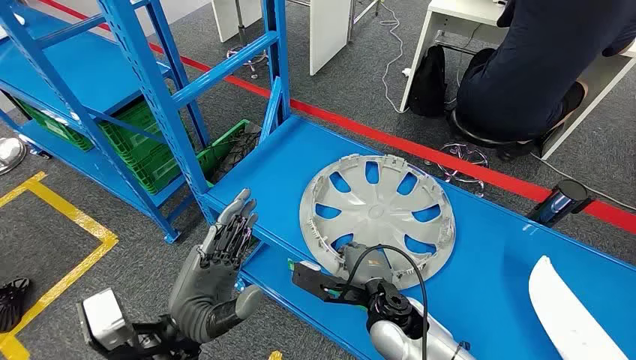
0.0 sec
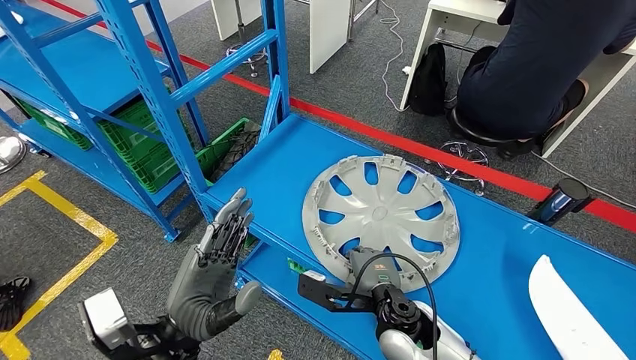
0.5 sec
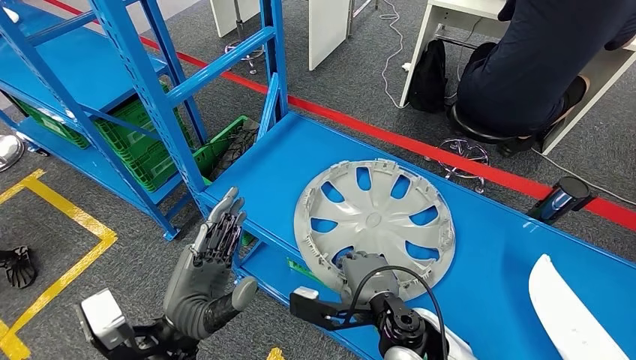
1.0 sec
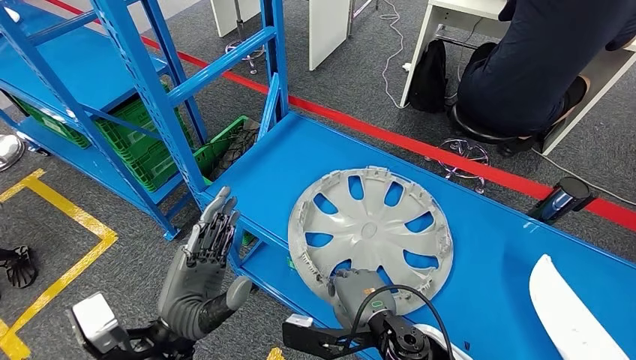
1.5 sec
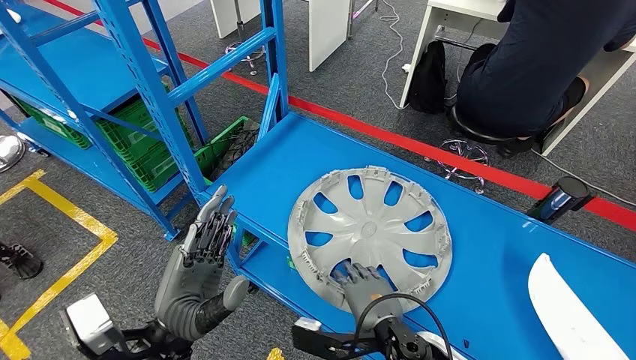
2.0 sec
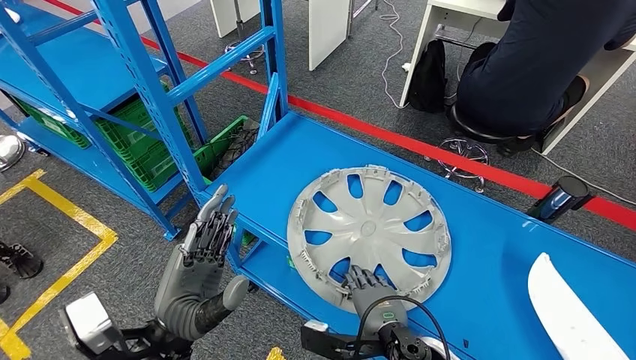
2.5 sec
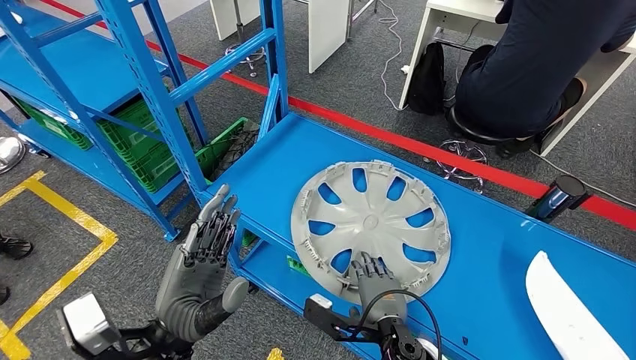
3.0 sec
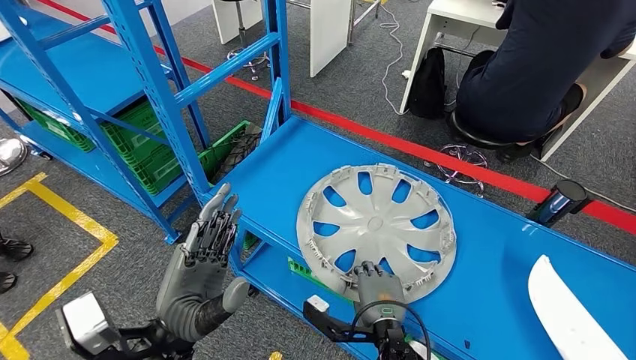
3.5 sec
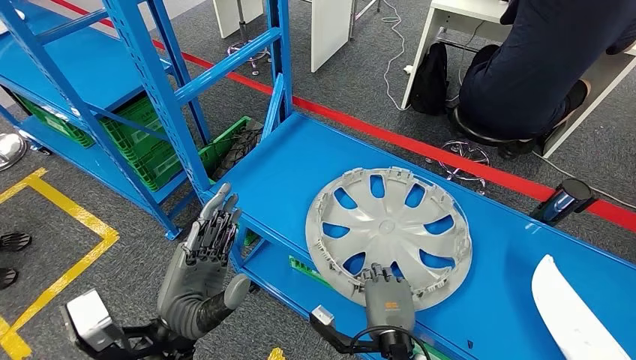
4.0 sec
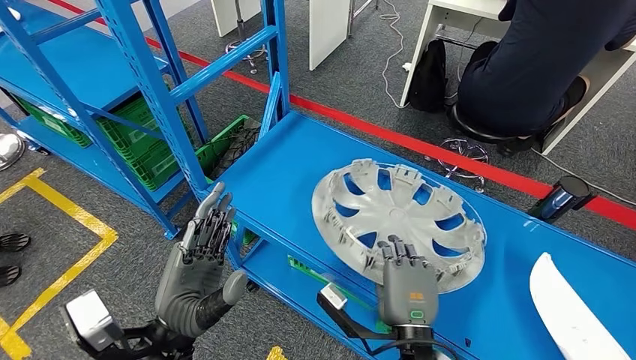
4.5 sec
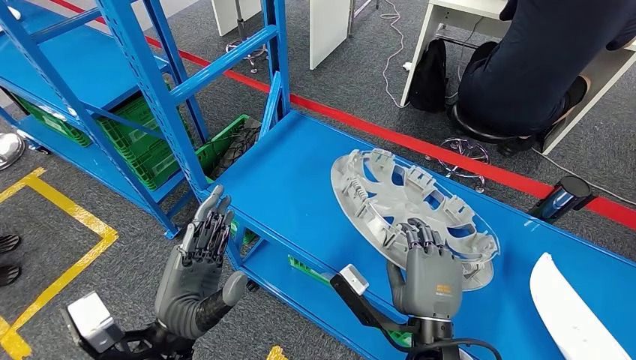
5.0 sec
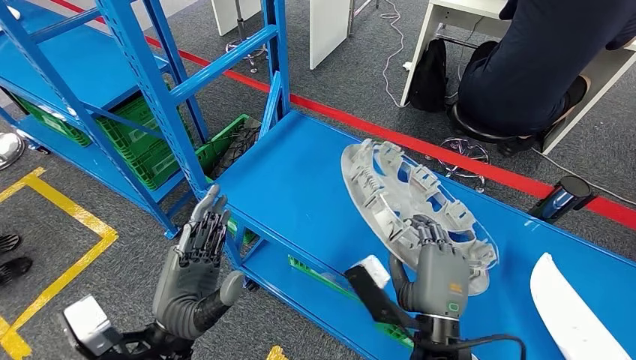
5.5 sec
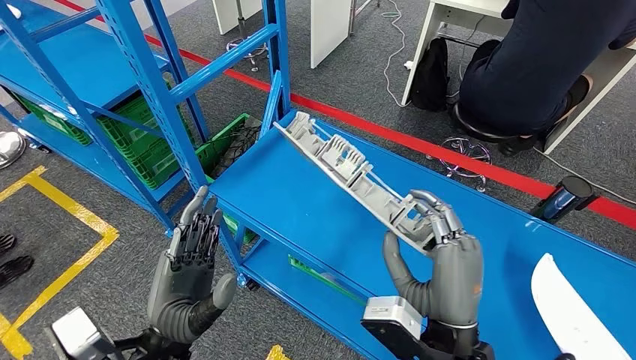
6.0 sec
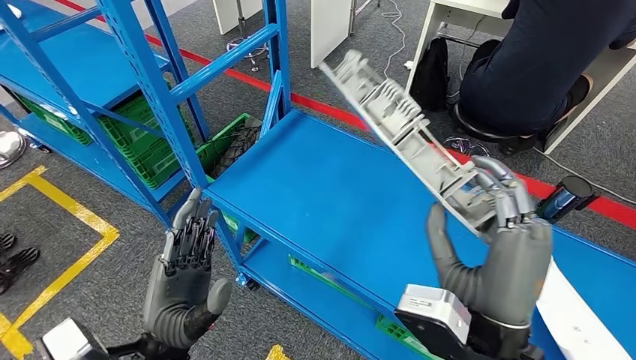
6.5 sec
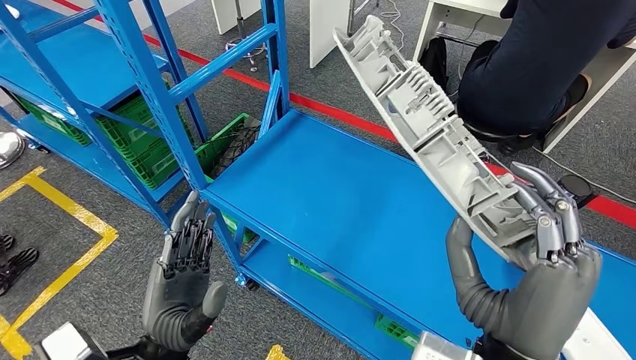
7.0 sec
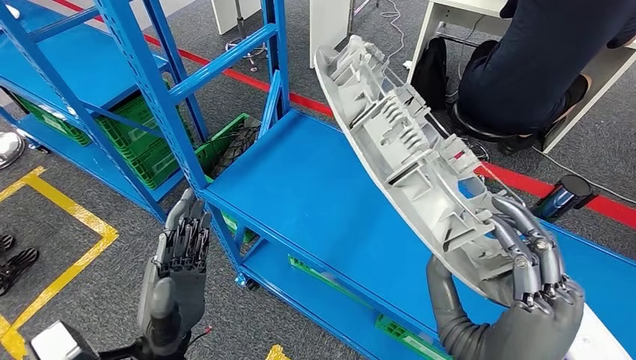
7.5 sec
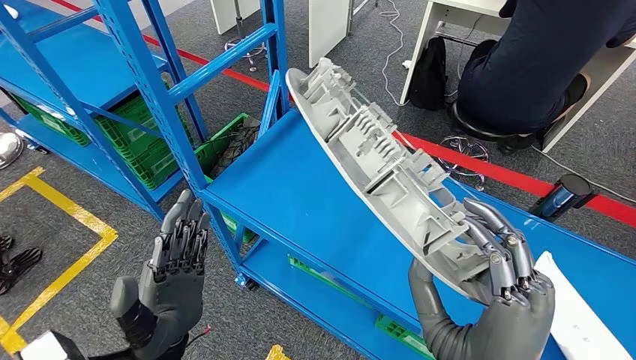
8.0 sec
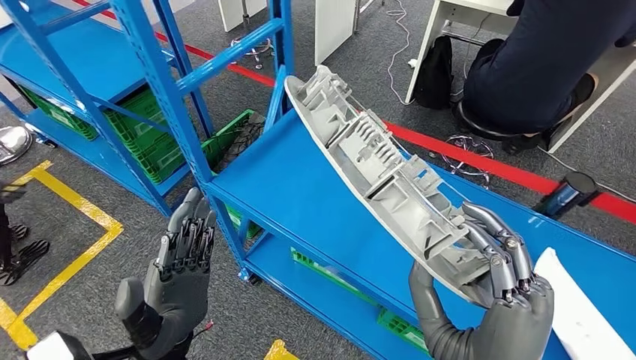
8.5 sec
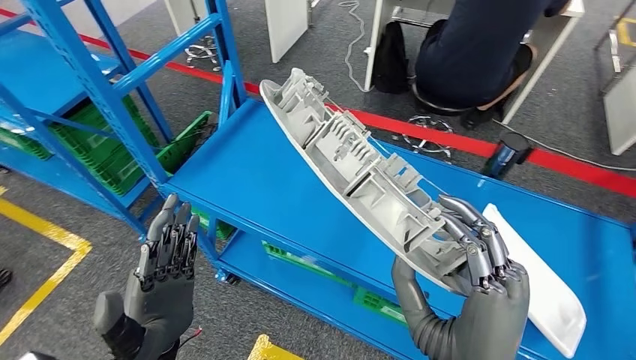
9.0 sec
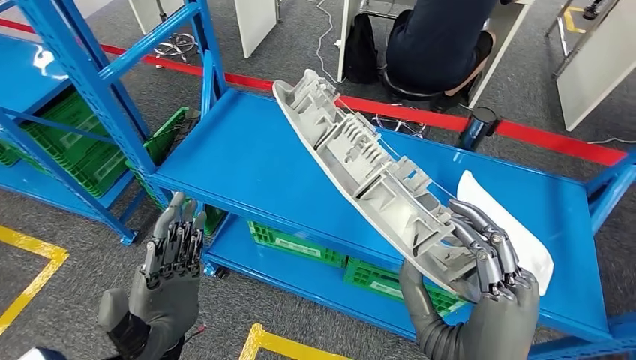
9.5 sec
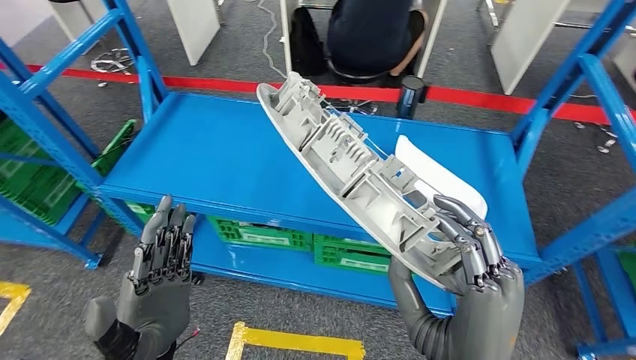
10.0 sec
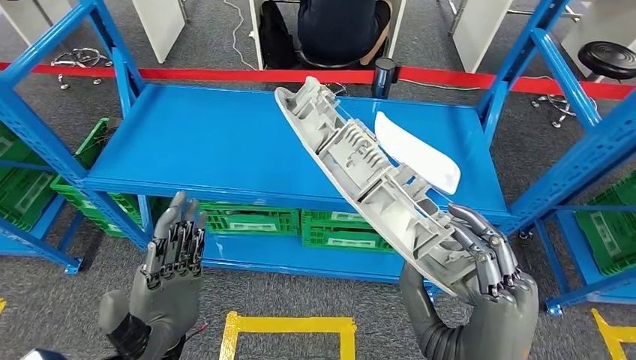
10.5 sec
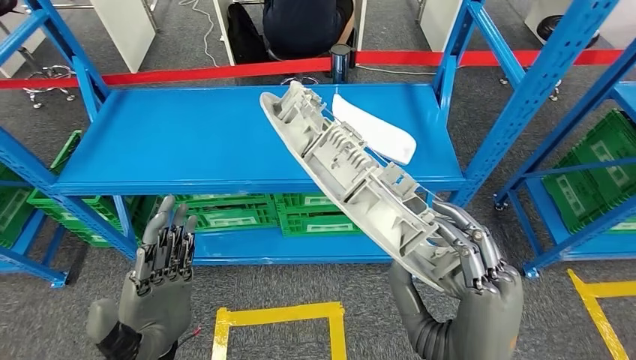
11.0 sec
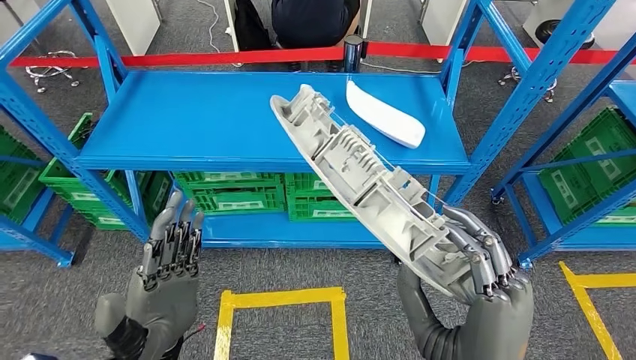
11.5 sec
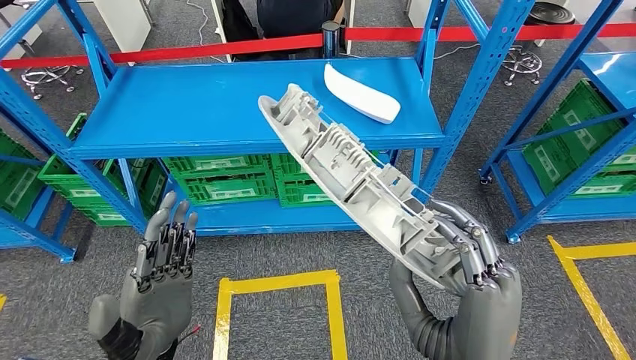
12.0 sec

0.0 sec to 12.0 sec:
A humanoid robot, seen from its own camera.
Step, 0.0 sec to 8.0 sec: Pick up the small component from the shelf.

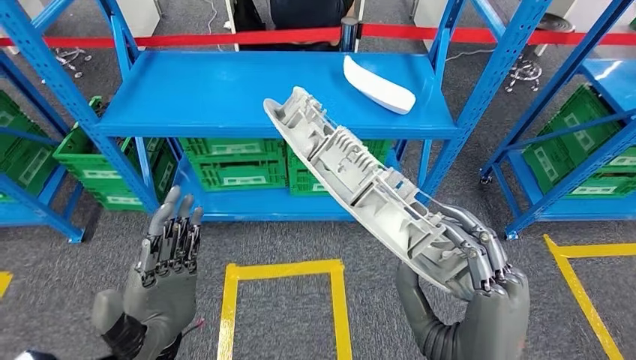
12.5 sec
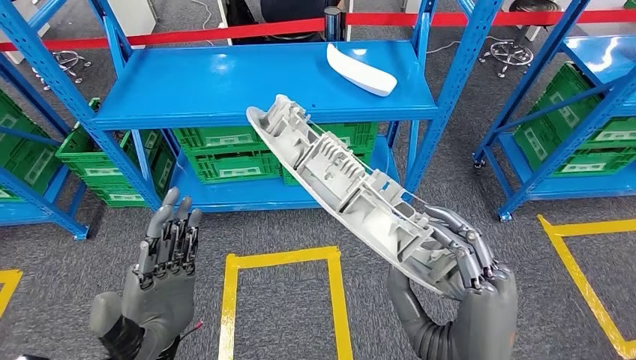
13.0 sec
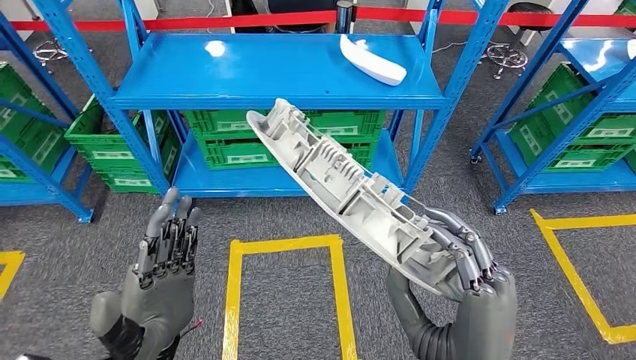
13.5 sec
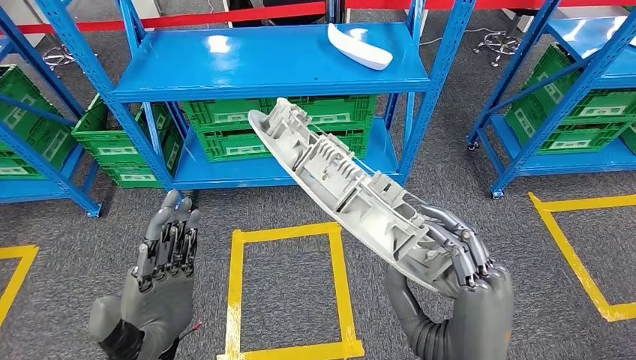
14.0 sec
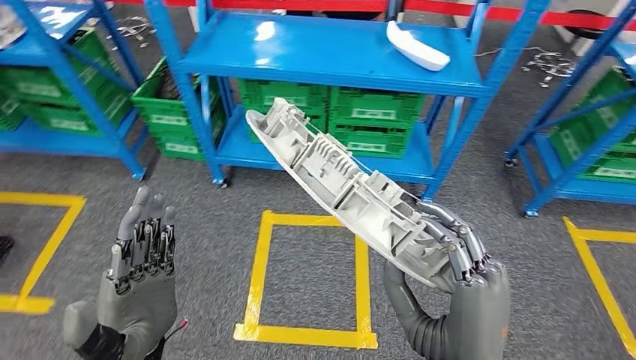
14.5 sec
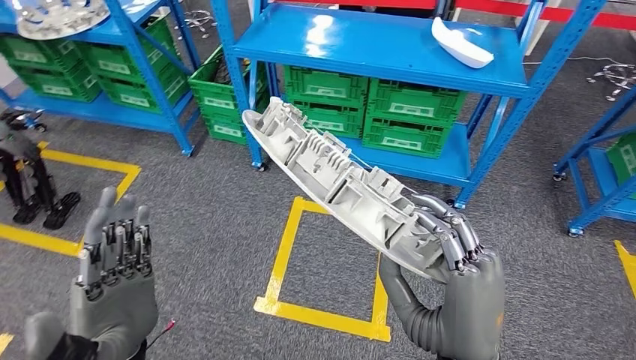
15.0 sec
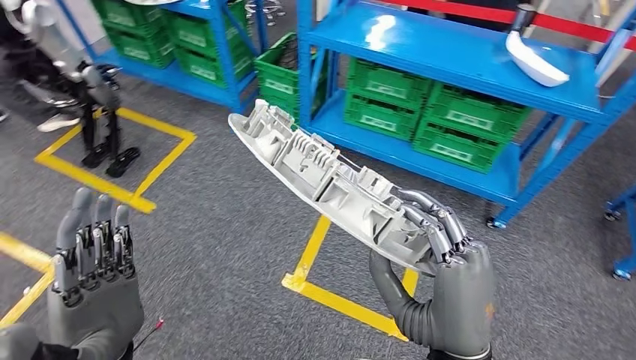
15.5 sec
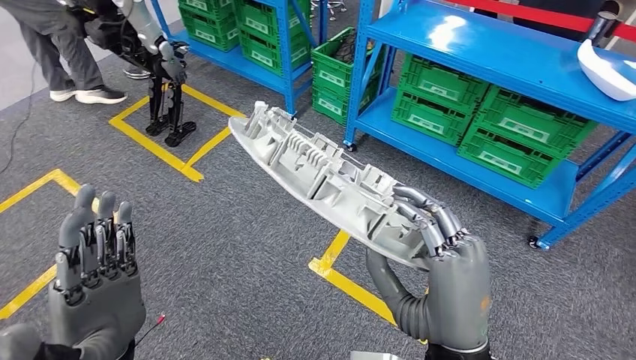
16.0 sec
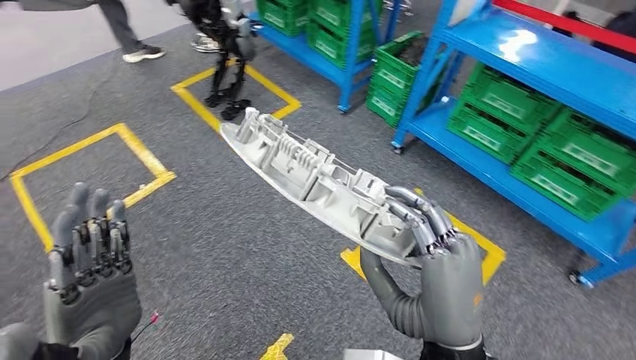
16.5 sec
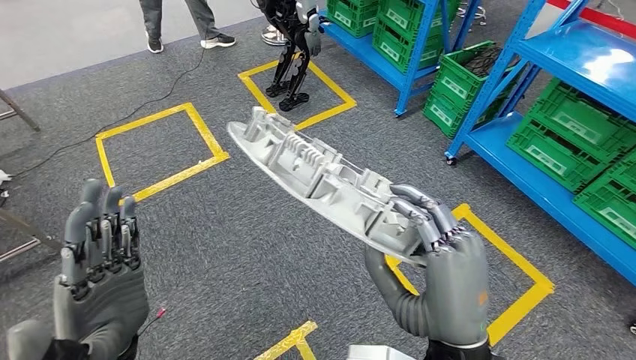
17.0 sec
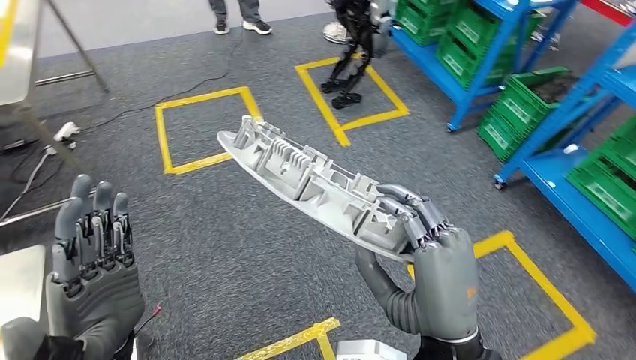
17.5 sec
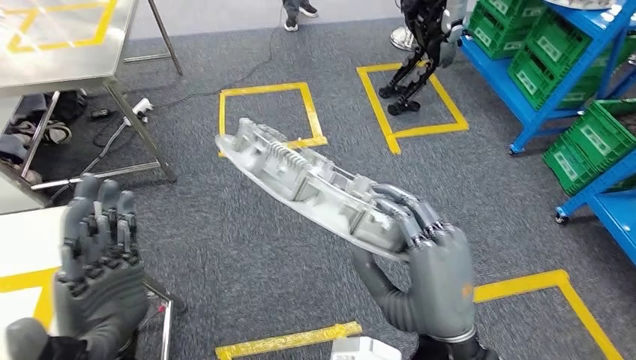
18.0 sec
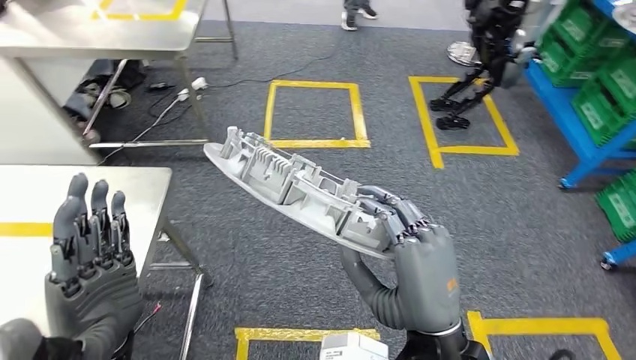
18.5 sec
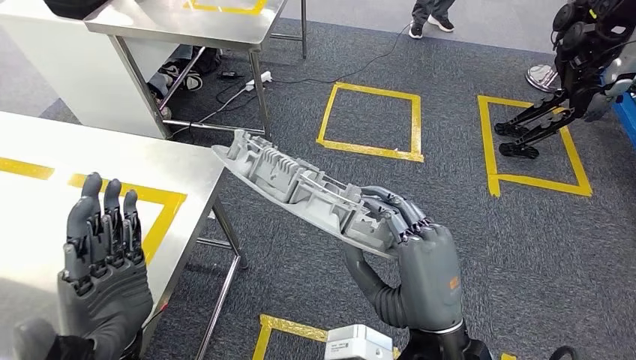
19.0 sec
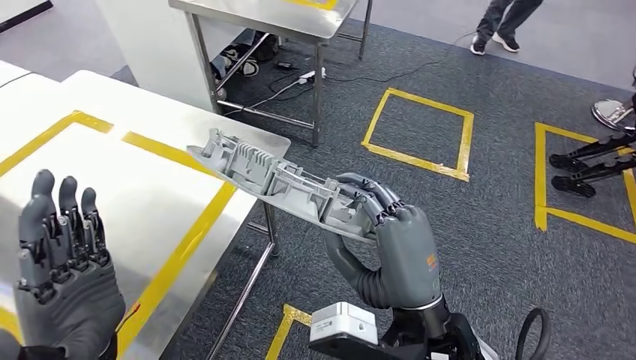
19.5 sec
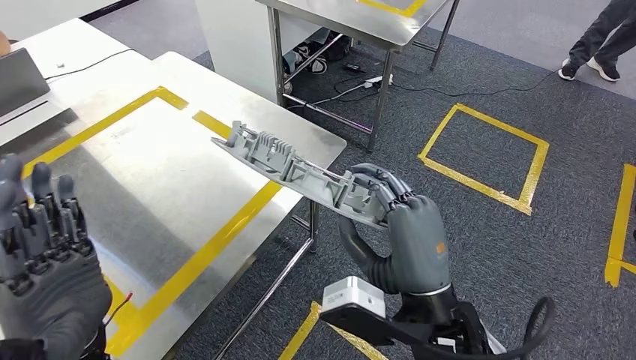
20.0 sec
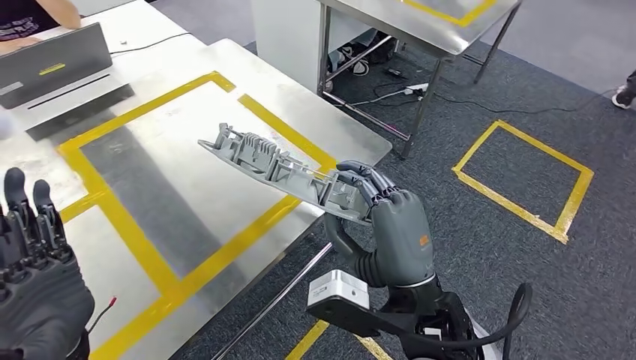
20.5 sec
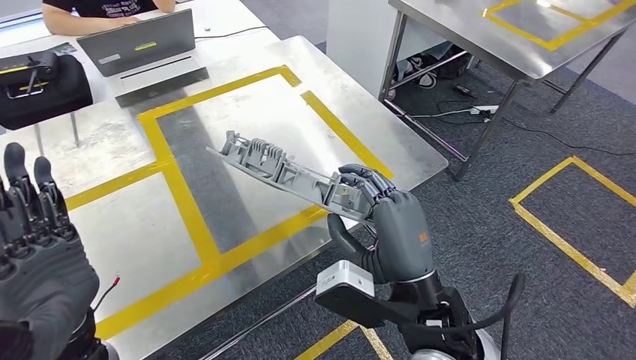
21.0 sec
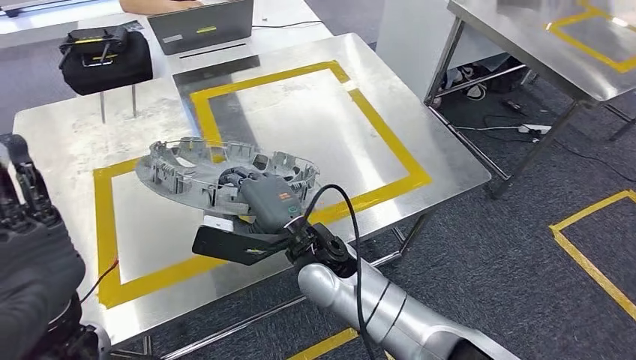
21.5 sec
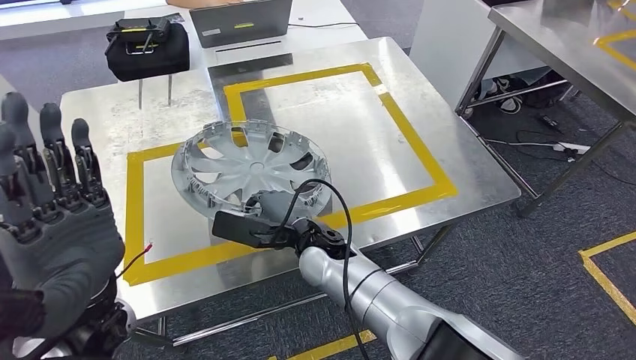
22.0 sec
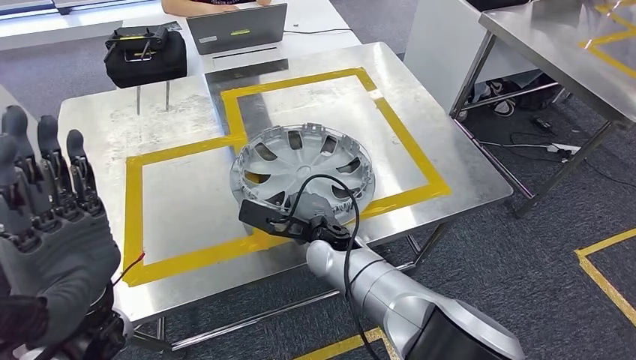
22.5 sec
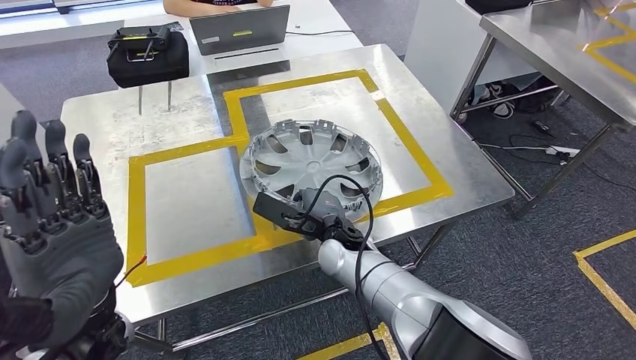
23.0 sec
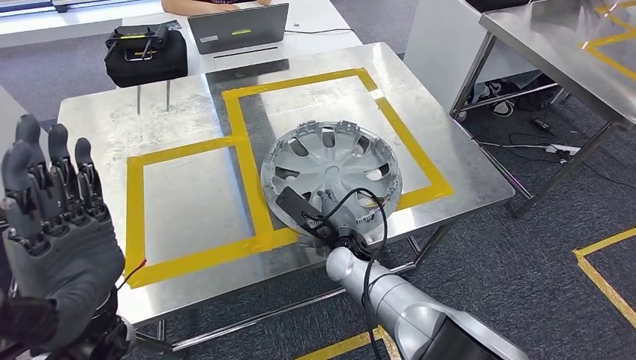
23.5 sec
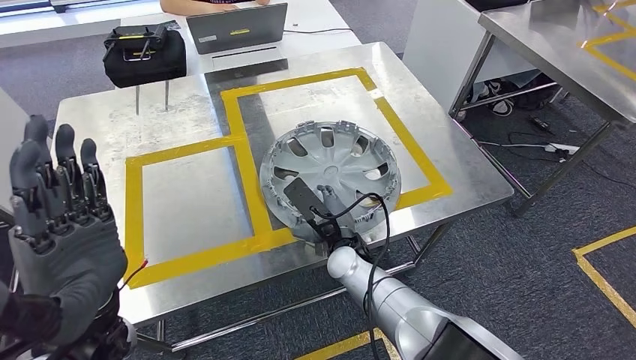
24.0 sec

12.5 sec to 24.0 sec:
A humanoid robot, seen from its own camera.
Step, 12.5 sec to 20.5 sec: Bring the small component to the front of the workbench.
